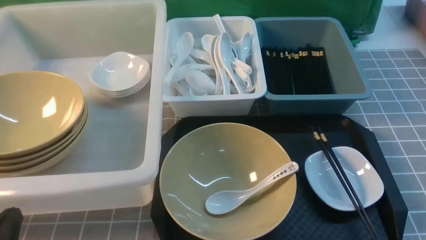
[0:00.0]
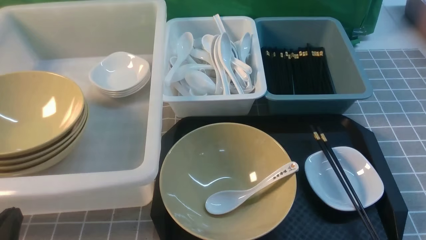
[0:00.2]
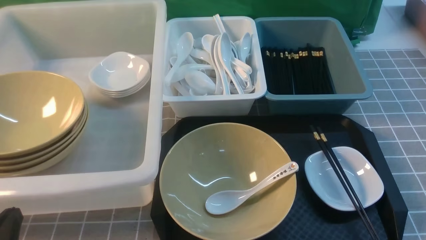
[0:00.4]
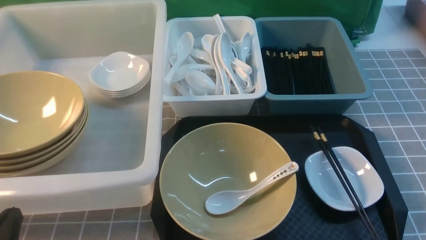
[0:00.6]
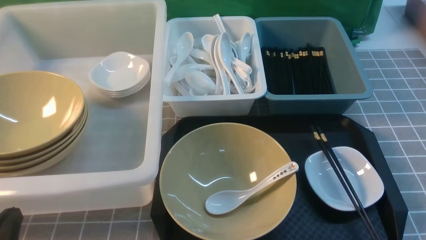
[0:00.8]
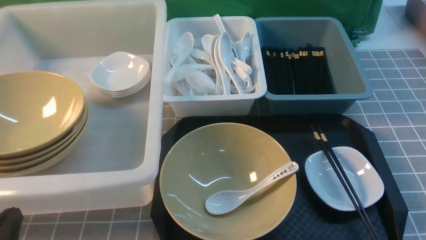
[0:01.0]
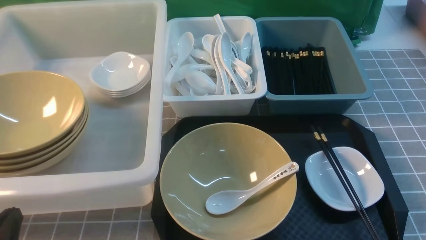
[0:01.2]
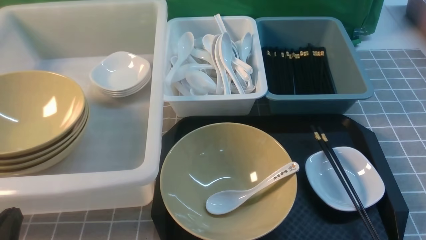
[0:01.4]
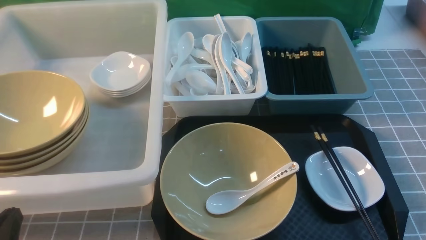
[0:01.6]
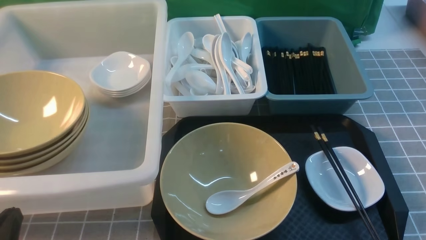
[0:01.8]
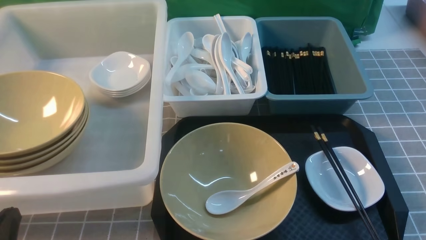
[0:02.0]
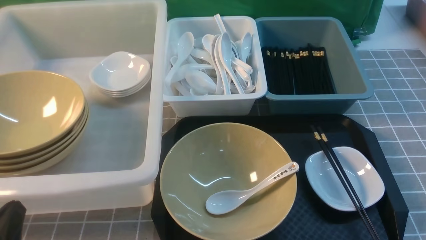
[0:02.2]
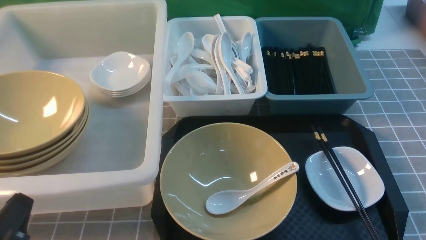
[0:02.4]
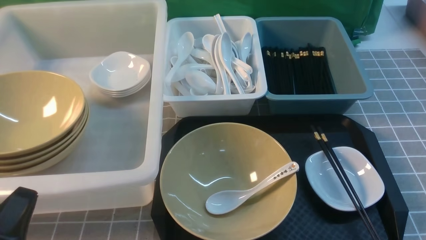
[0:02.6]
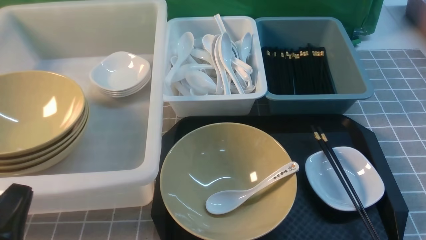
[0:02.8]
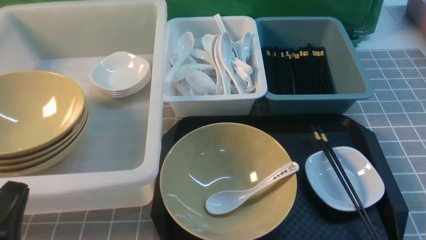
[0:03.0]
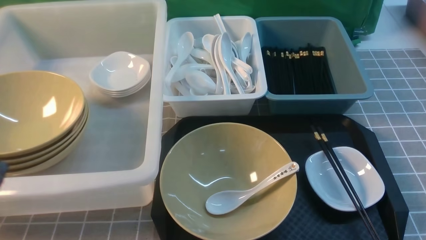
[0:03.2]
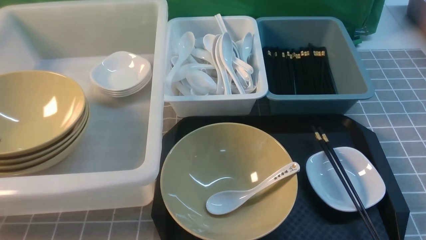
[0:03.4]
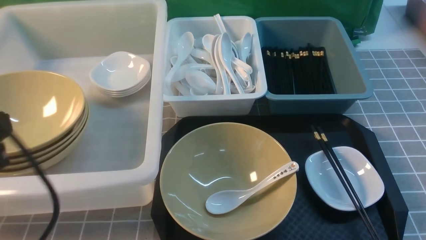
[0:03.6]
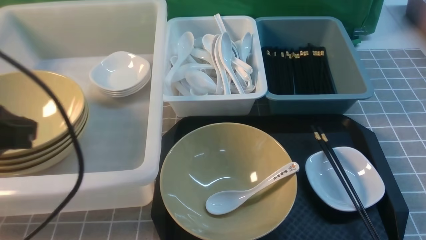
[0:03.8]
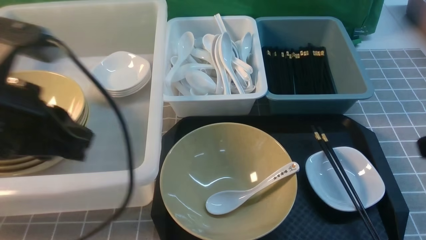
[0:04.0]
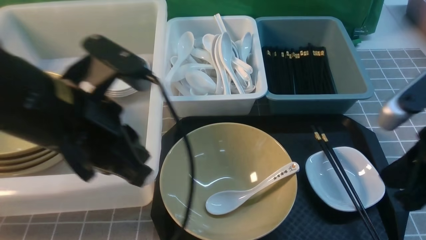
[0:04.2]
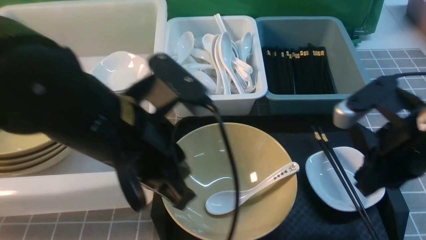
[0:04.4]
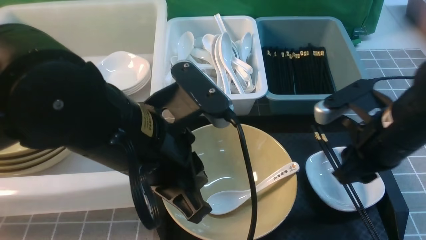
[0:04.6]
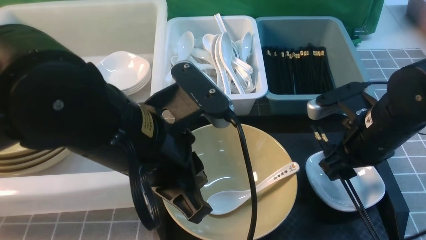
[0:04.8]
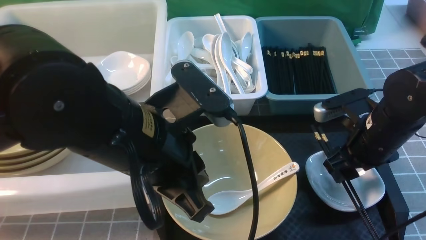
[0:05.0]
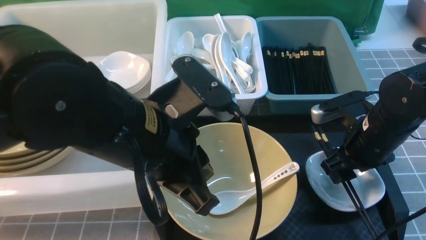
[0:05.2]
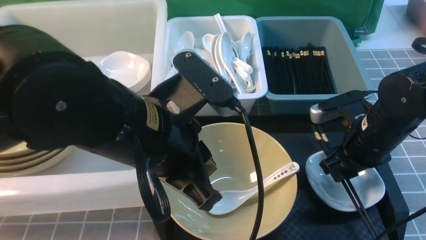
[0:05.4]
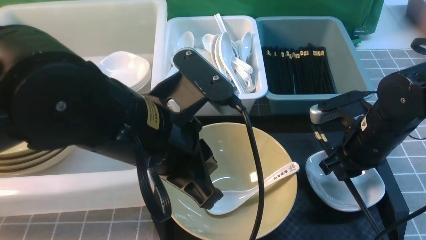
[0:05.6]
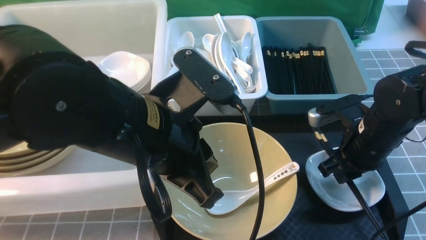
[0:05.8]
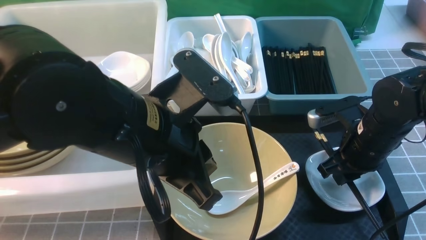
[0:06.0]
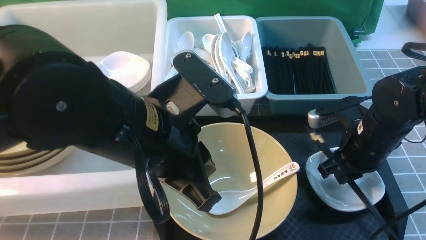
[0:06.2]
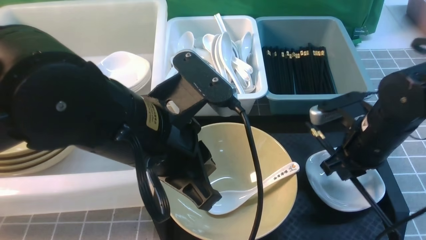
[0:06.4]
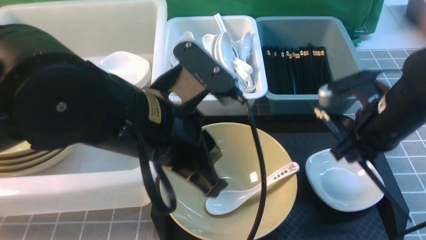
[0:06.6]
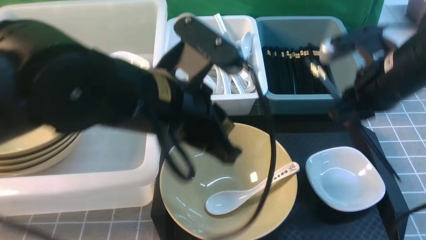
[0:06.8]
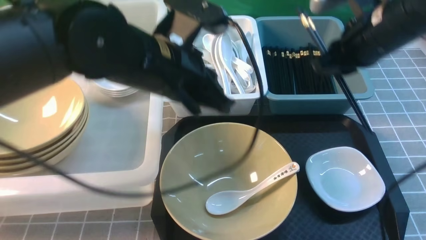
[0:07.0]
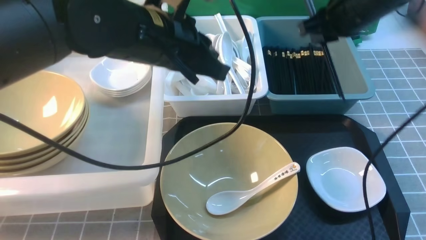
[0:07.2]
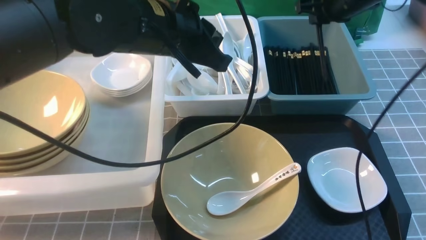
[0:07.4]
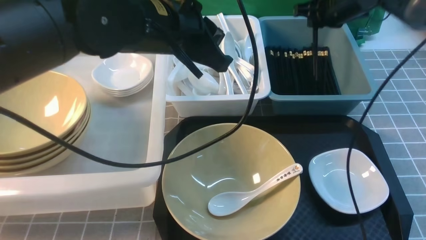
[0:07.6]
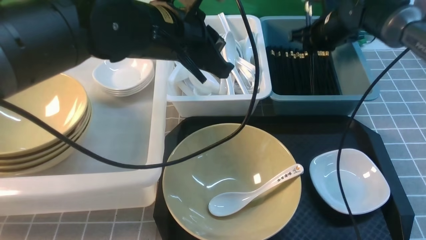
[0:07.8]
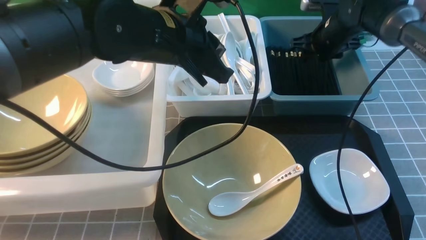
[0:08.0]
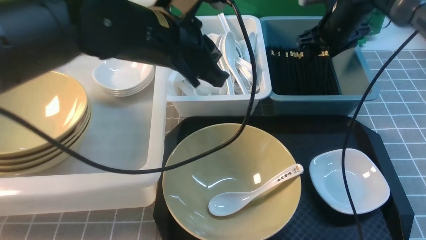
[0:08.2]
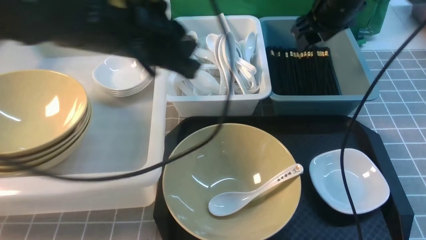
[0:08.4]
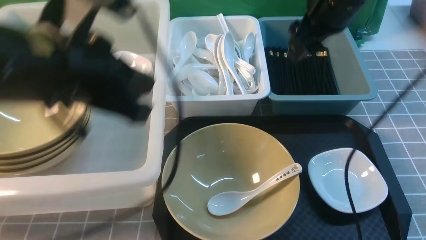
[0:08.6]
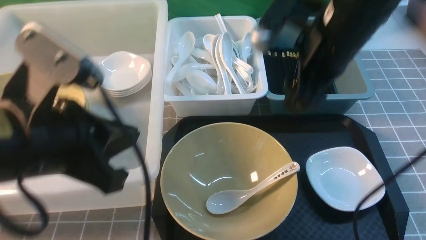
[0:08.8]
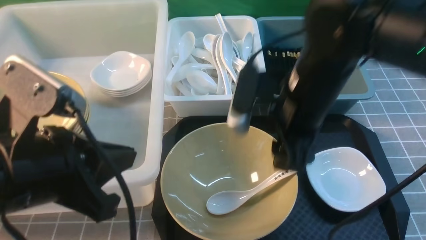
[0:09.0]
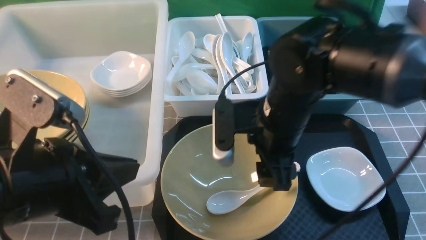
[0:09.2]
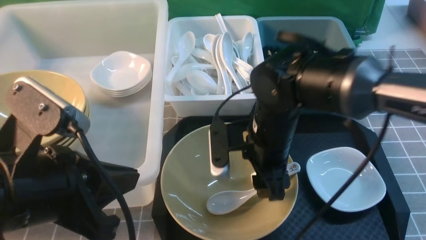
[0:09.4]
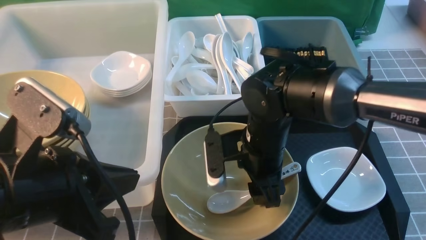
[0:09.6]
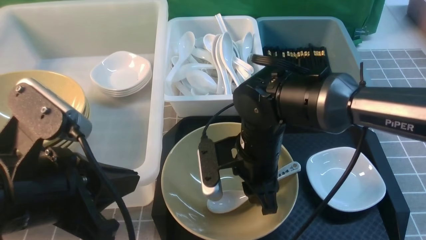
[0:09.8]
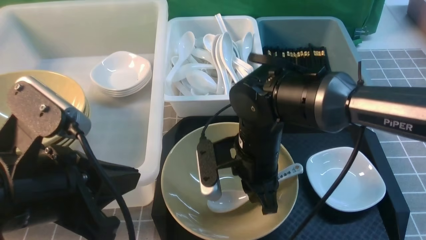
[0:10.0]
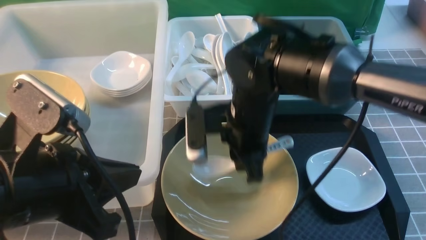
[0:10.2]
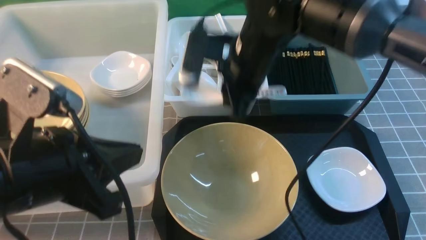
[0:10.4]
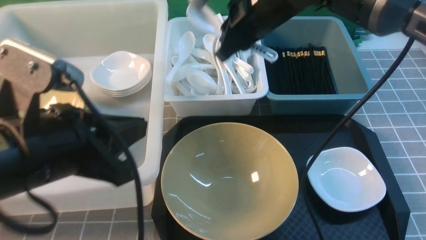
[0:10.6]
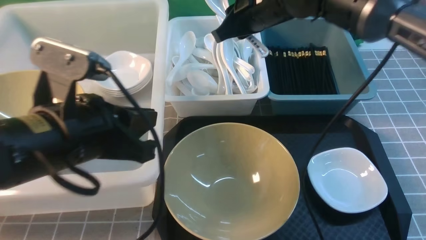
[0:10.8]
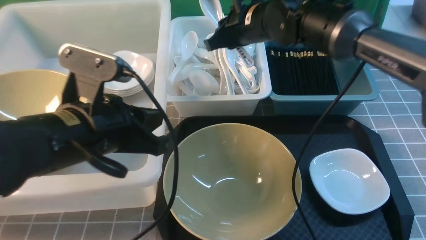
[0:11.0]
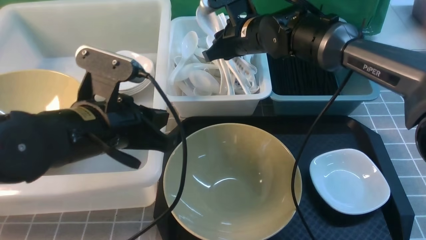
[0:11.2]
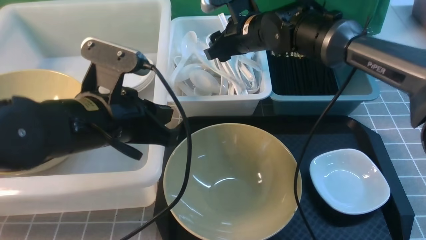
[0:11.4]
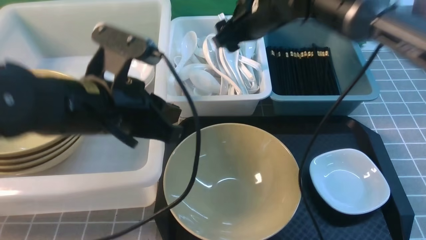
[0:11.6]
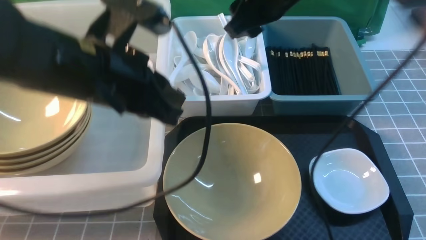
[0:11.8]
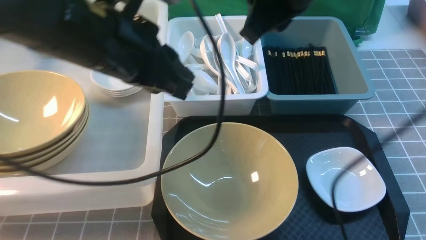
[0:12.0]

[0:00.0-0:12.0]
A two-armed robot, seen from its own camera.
Task of the whole recording: on grey table put chopsticks spoon bowls plates into blue grey white boxes.
Step, 0:00.0 to 0:06.4: use the right arm to grab the chopsticks.
Step, 0:06.6 to 0:08.2: use the right arm to put the chopsticks into the small storage box on the right.
Step, 0:08.4 to 0:10.2: use the right arm to grab the soup spoon in the middle.
Step, 0:10.4 to 0:11.8: use the right arm to put the soup spoon into the small storage box in the middle.
0:00.0 to 0:01.6: Both grippers stay about where they are.
0:01.6 to 0:03.0: The left gripper heads upward, covering some 5 cm.
0:03.0 to 0:04.4: The left gripper heads to the right, forward and upward, covering approximately 20 cm. The right gripper moves forward, upward and to the left, some 20 cm.
0:04.4 to 0:06.0: The right gripper is displaced downward and forward by some 10 cm, and opens, then closes again.
0:06.0 to 0:07.6: The left gripper moves forward, some 15 cm; the right gripper heads forward, covering approximately 20 cm.
0:07.6 to 0:09.0: Both grippers travel together backward and to the left, roughly 25 cm. The right gripper opens.
0:09.0 to 0:10.4: The right gripper goes some 5 cm forward, goes downward and returns, approximately 10 cm each way, and closes its fingers.
0:10.4 to 0:12.0: The left gripper shifts roughly 15 cm forward and to the right; the right gripper goes roughly 10 cm upward, and opens, then closes again.

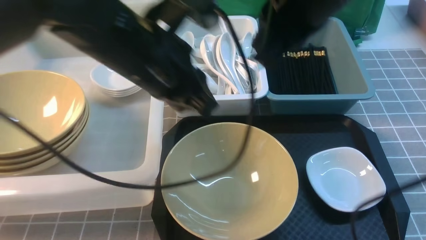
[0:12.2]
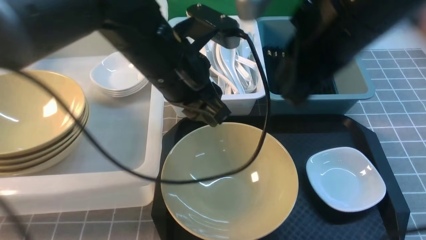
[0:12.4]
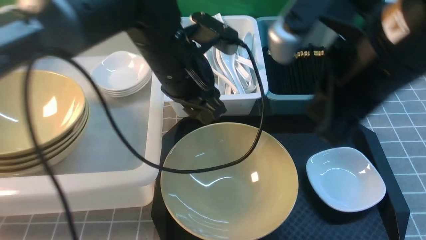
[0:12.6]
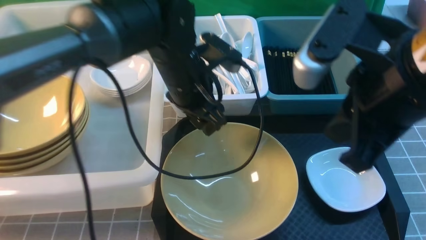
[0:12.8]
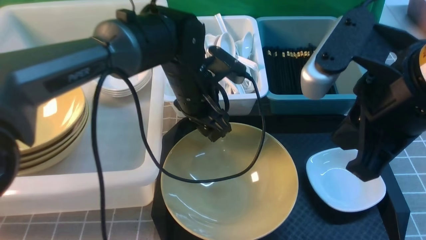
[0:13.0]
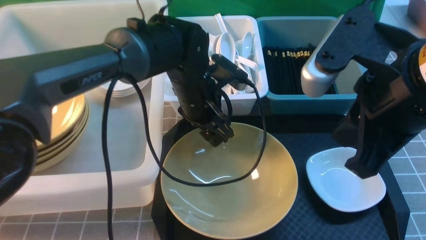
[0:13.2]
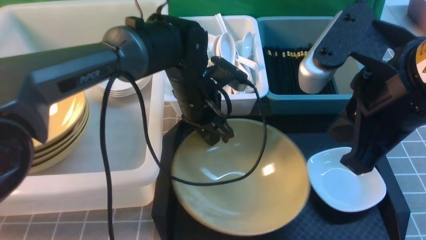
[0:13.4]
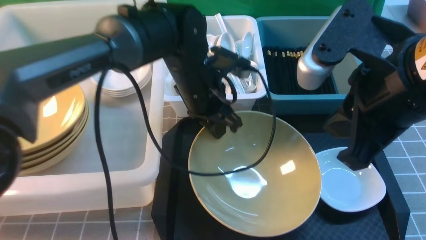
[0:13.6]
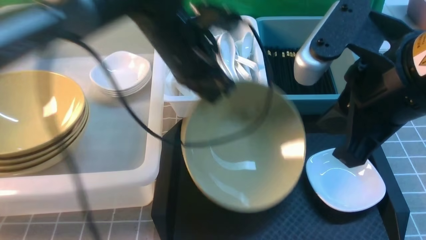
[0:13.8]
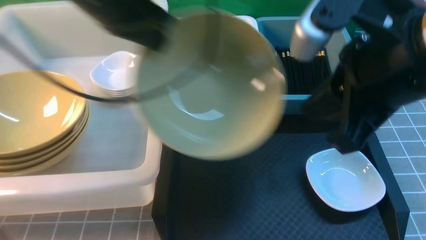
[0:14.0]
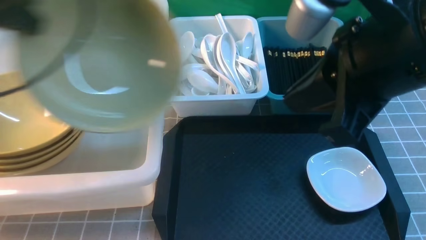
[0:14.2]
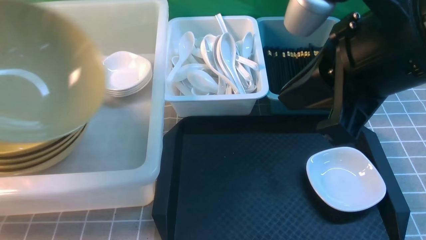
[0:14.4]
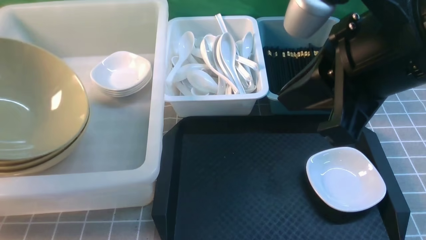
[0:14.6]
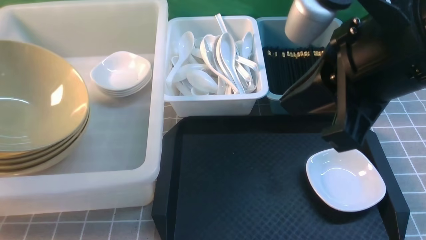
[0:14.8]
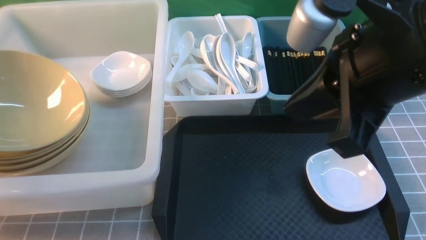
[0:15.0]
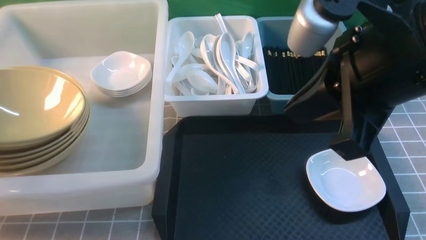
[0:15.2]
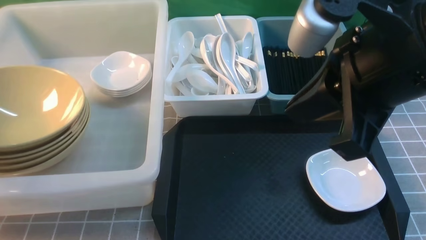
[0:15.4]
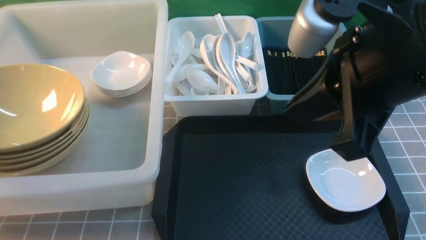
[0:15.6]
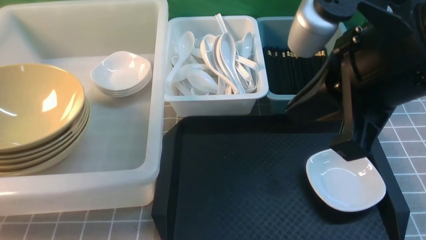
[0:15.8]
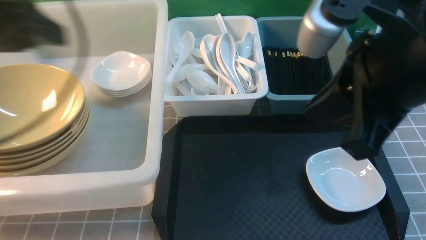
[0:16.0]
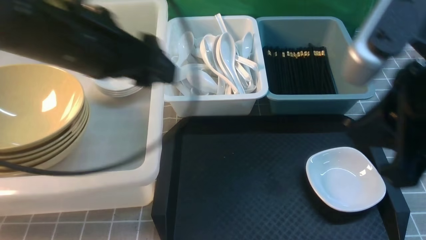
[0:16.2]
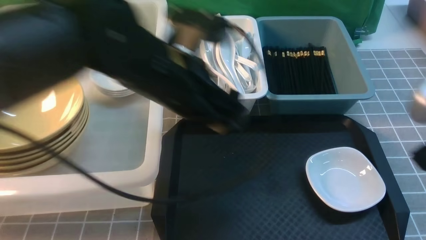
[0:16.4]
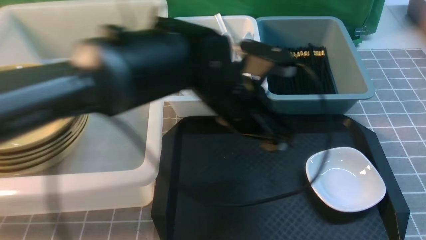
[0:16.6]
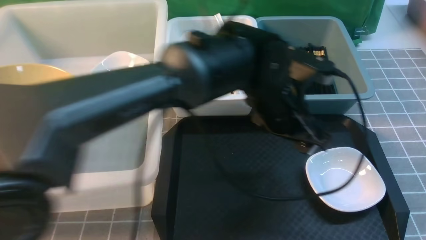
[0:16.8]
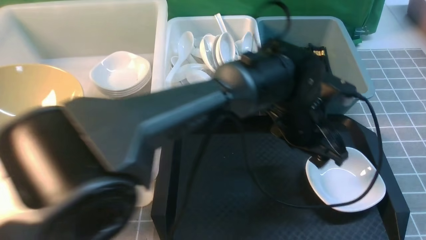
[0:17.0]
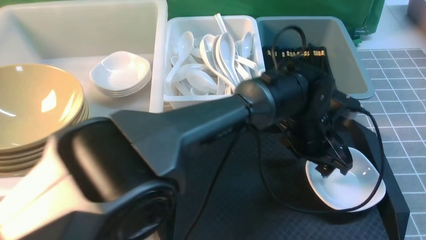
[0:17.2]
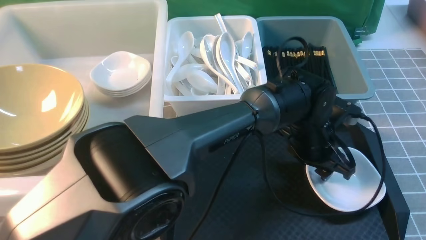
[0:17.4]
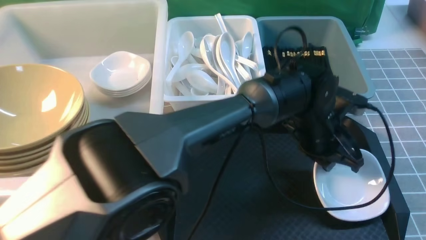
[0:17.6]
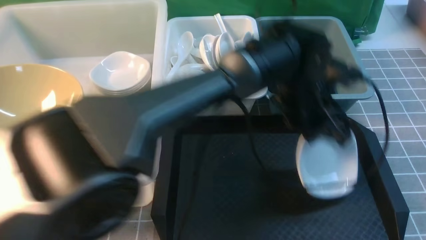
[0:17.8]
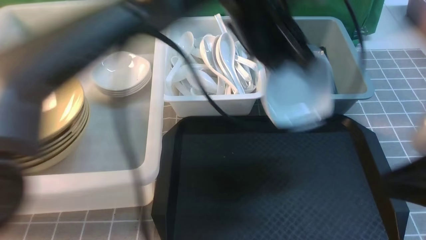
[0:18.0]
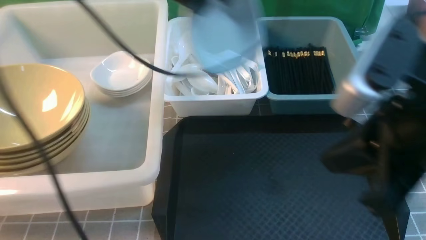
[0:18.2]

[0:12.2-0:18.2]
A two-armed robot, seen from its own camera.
Task of the whole recording: on grey table put chopsticks spoon bowls plates into blue grey white boxes.
Step, 0:12.2 to 0:13.8: use the left arm to grab the yellow noodle bowl on the left.
Step, 0:14.0 to 0:16.0: use the left arm to put the noodle bowl into the large storage box on the left.
Step, 0:16.2 to 0:17.8: use the left arm to grab the plate.
0:12.2 to 0:13.8: The left gripper travels forward by about 5 cm, travels downward and back again, some 15 cm each way, and opens, then closes again. Meanwhile the right gripper is displaced backward by approximately 5 cm.
0:13.8 to 0:15.2: The left gripper shifts roughly 30 cm to the left, and opens its fingers.
0:15.2 to 0:16.6: The left gripper moves to the right, approximately 40 cm, and opens. Meanwhile the right gripper heads to the right, backward and downward, covering approximately 15 cm.
0:16.6 to 0:18.2: The right gripper is displaced to the left by roughly 10 cm, while the left gripper heads upward, to the left and forward, covering roughly 20 cm, and closes its fingers.
